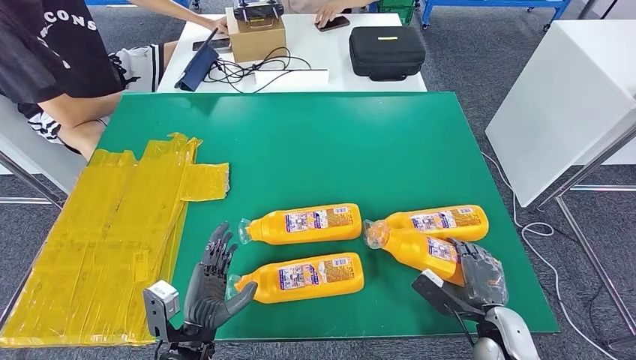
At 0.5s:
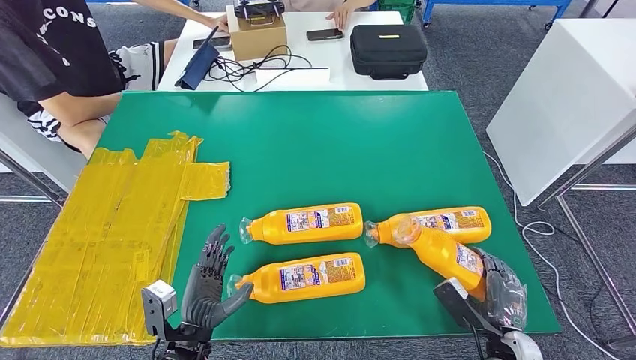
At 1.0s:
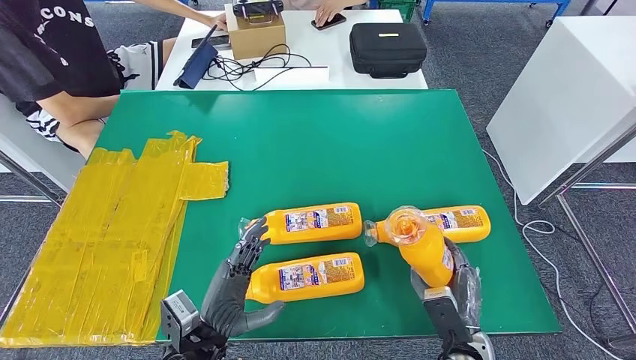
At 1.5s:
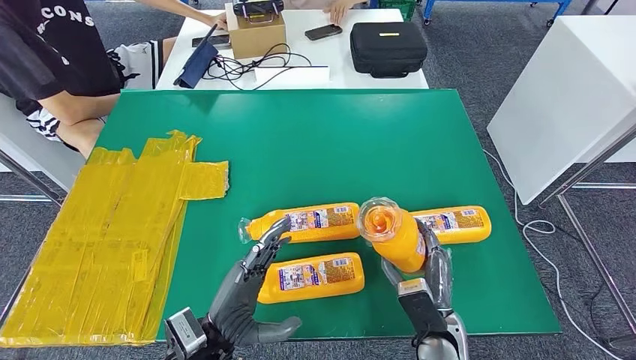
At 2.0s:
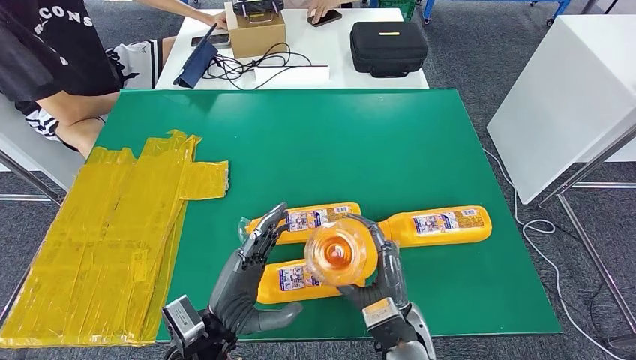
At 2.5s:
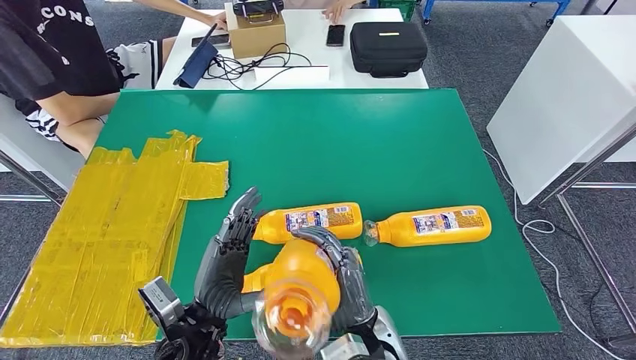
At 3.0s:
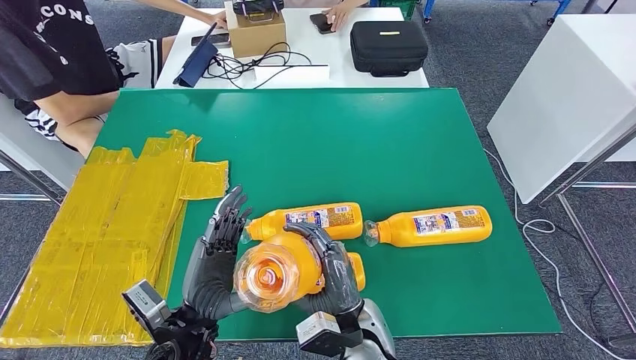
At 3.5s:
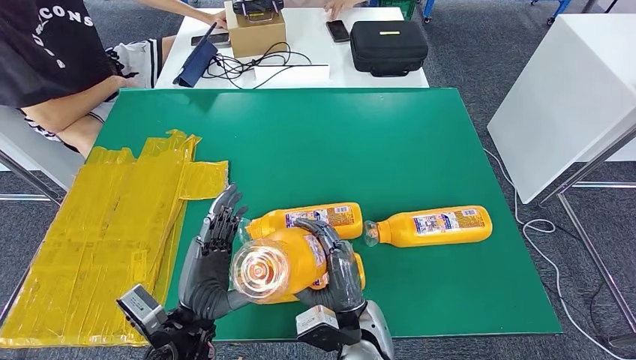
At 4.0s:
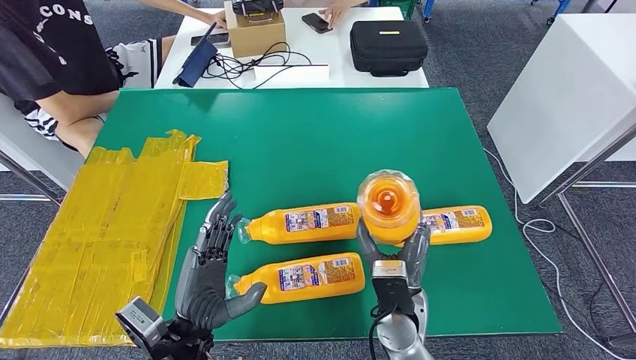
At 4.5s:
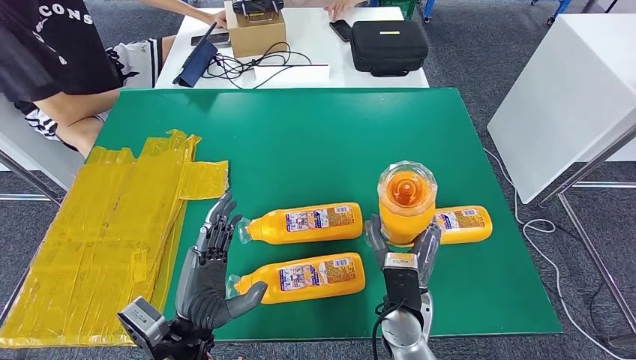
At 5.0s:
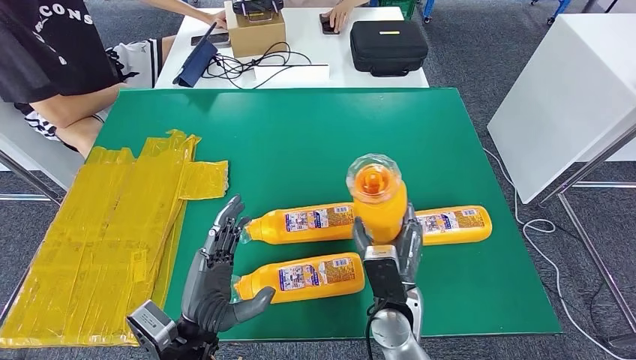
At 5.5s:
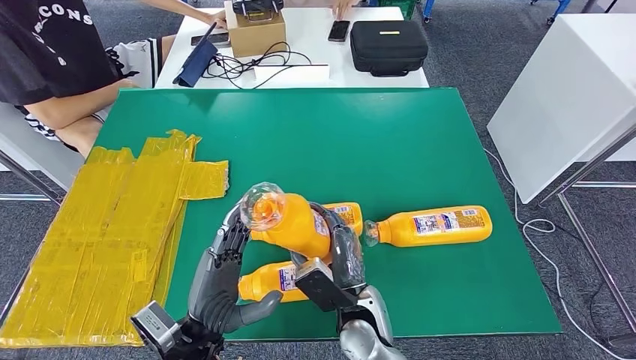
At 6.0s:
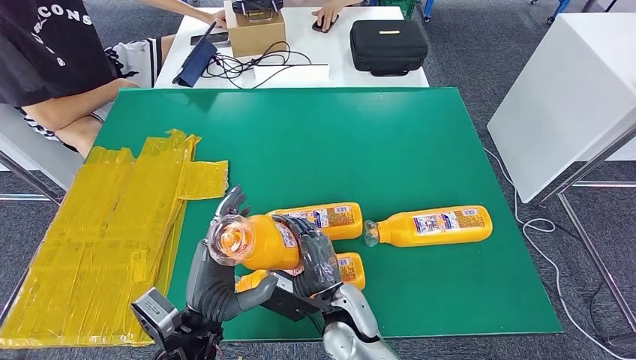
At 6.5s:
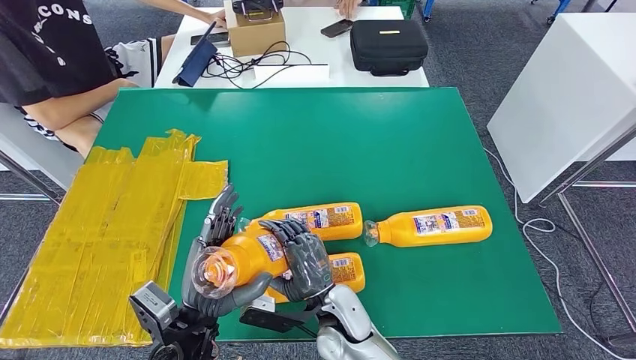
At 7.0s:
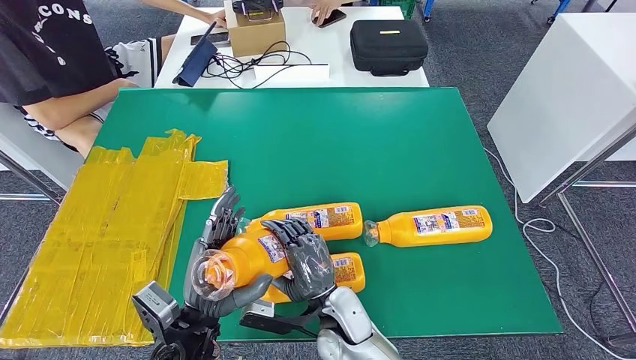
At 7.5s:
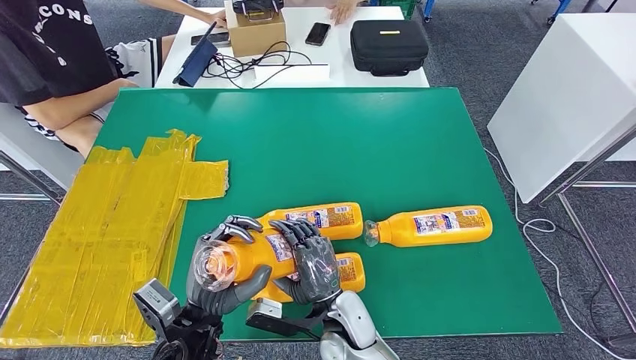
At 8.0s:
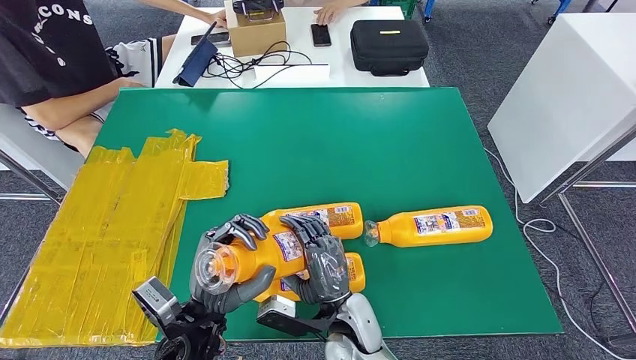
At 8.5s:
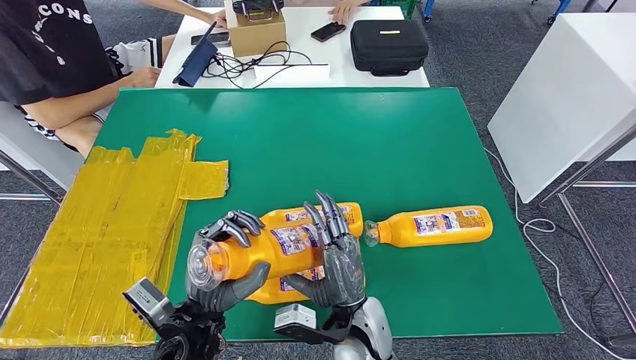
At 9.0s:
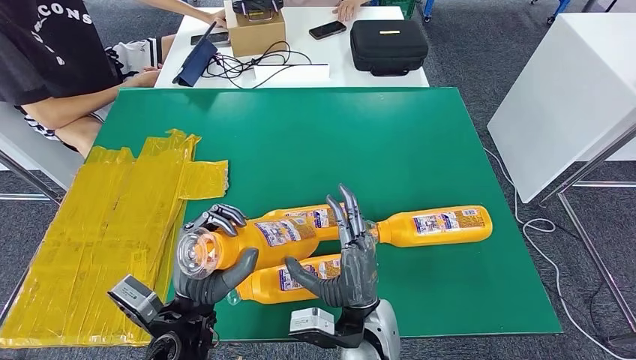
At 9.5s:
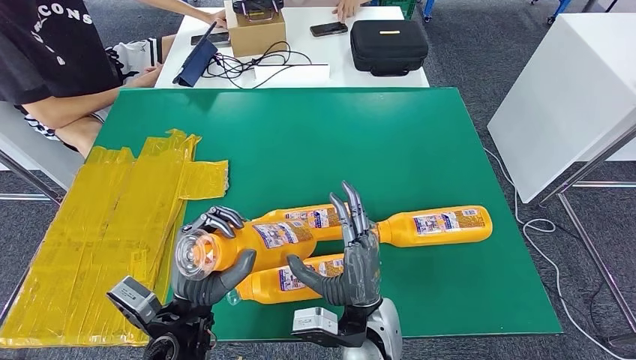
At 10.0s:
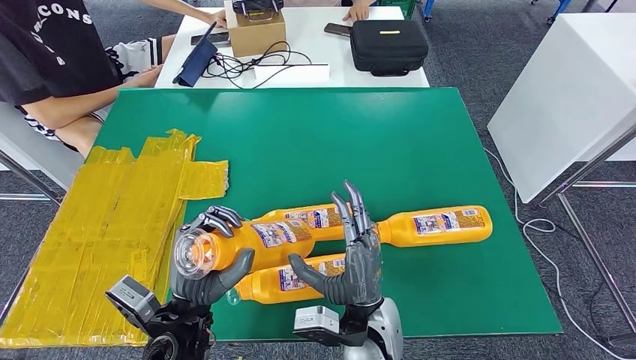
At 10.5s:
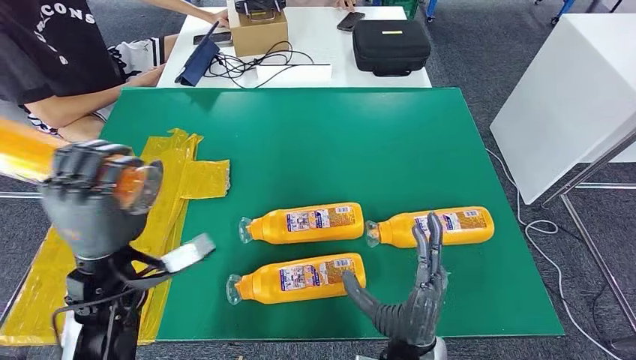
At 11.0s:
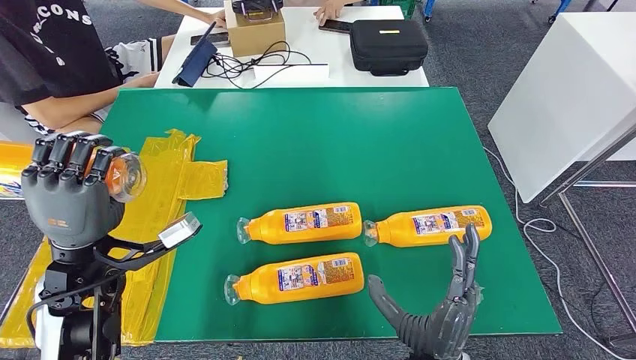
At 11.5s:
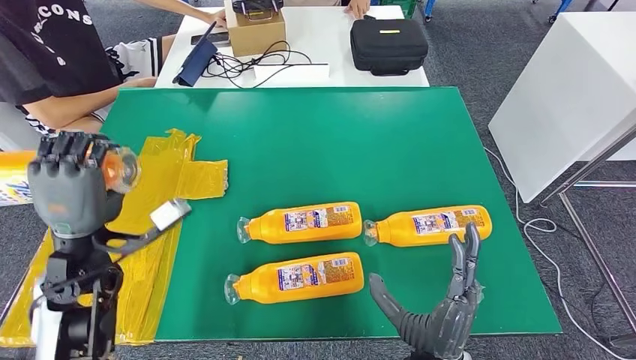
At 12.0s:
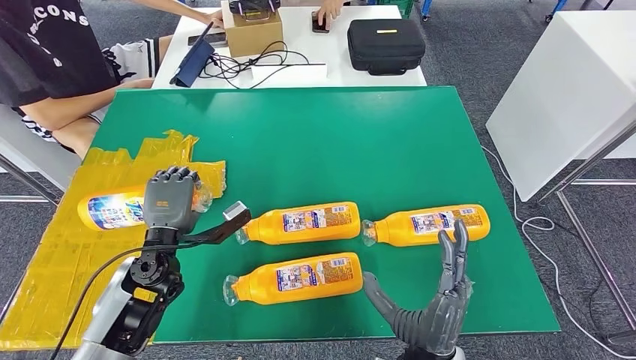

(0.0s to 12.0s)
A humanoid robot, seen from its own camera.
4.0s - 6.0s: The right hand heads to the left, covering about 10 cm.
6.0s - 8.0s: The hands move only a little.
8.0s - 10.0s: The right hand changes place by approximately 5 cm.

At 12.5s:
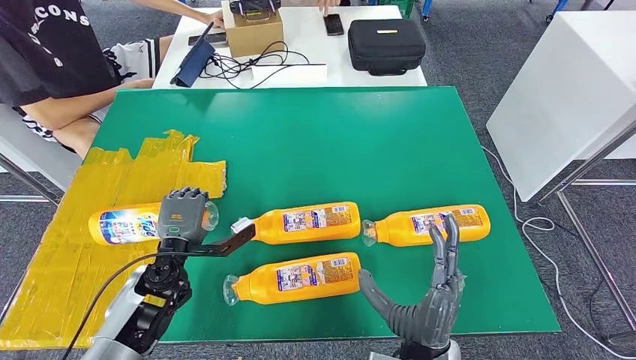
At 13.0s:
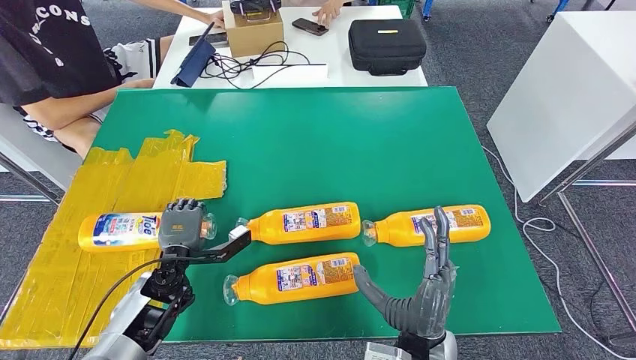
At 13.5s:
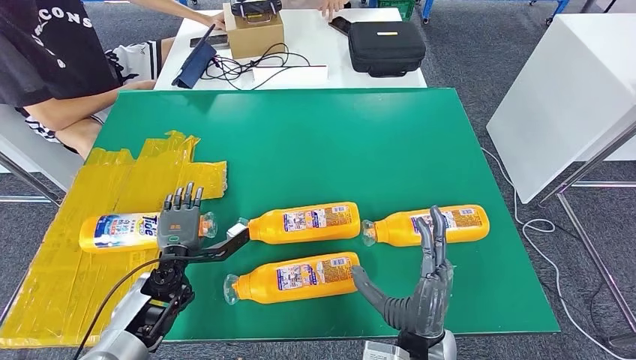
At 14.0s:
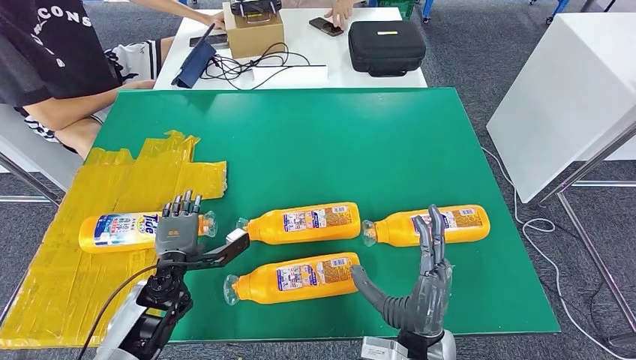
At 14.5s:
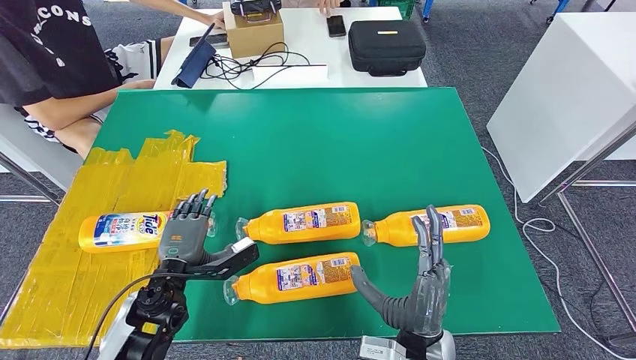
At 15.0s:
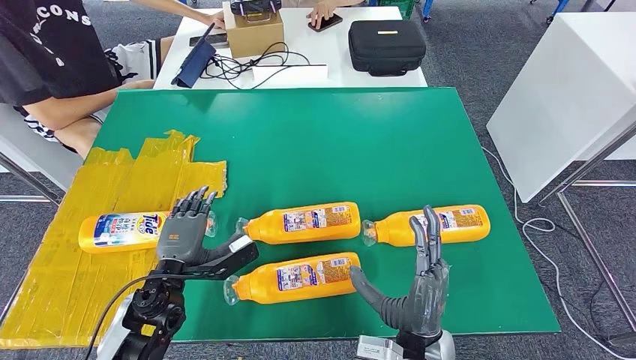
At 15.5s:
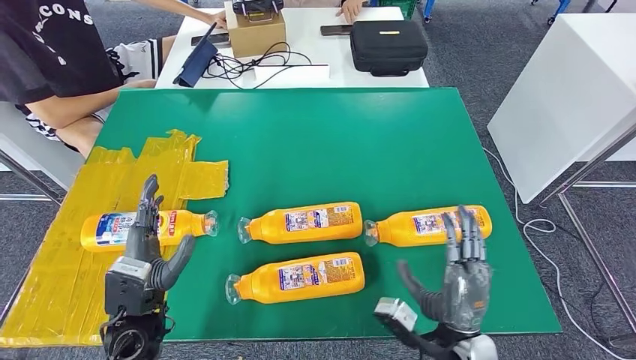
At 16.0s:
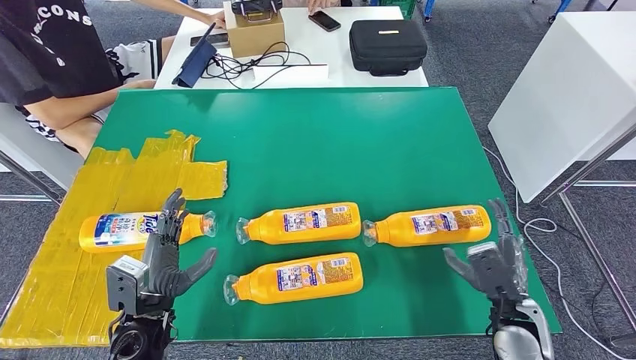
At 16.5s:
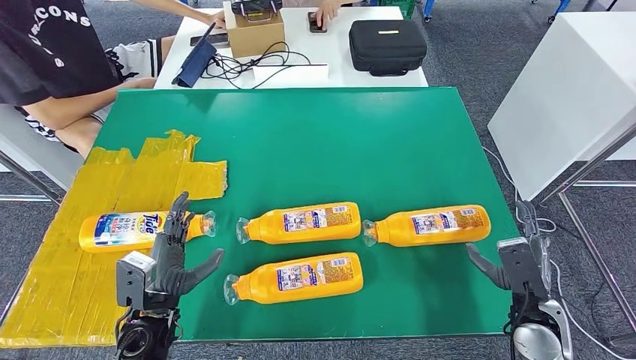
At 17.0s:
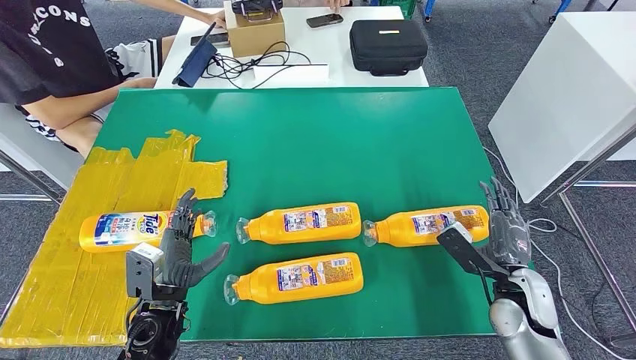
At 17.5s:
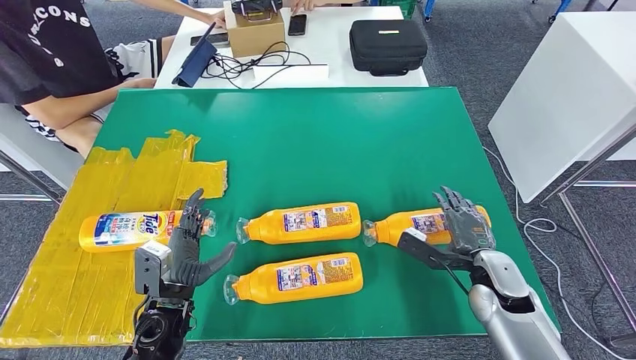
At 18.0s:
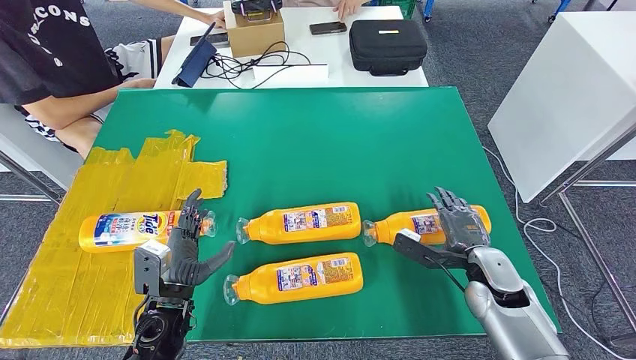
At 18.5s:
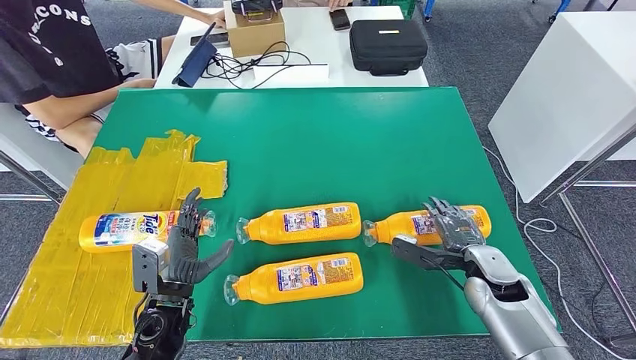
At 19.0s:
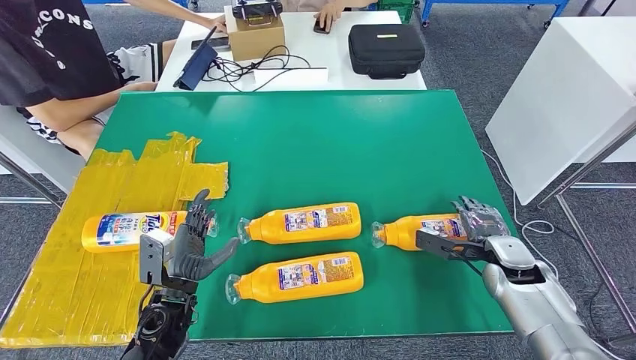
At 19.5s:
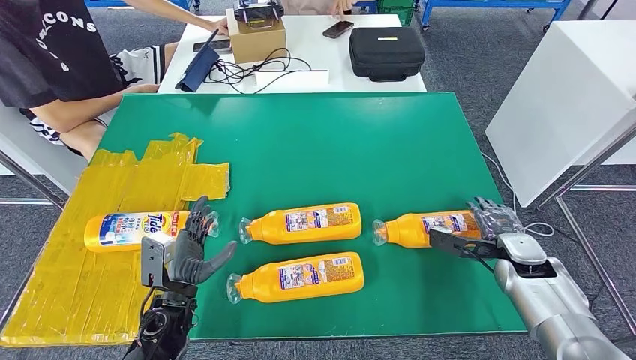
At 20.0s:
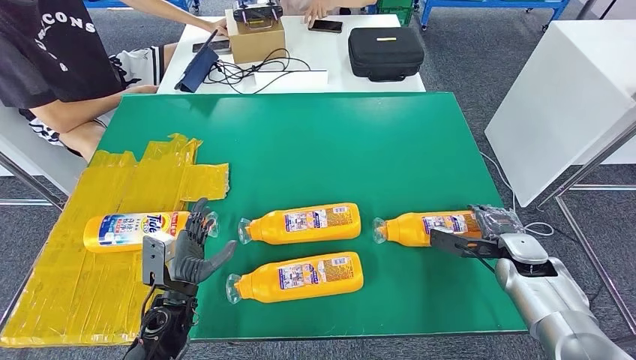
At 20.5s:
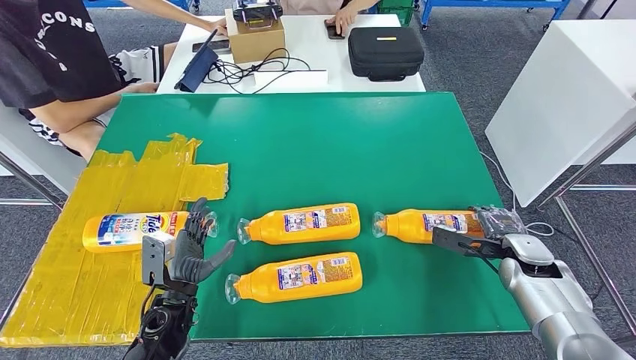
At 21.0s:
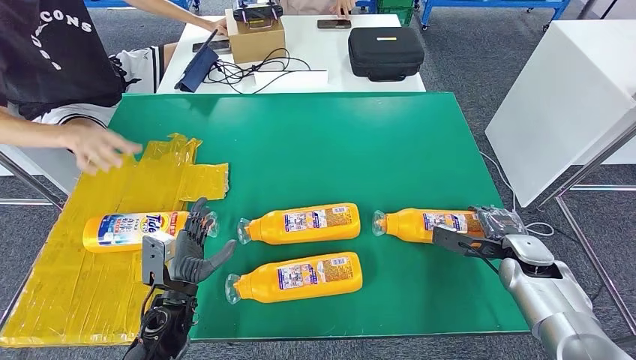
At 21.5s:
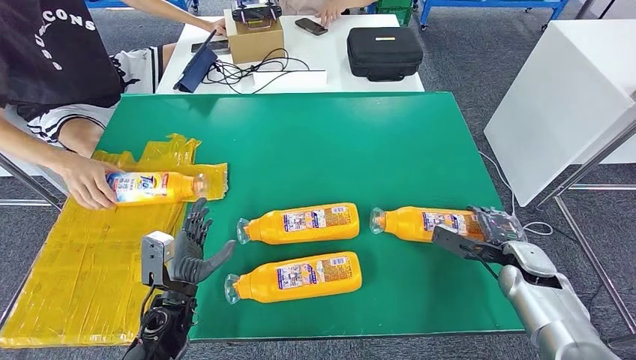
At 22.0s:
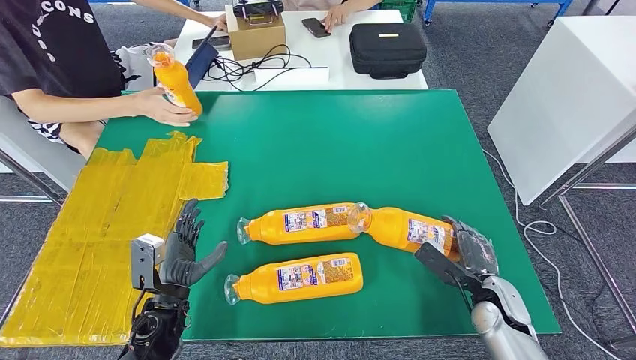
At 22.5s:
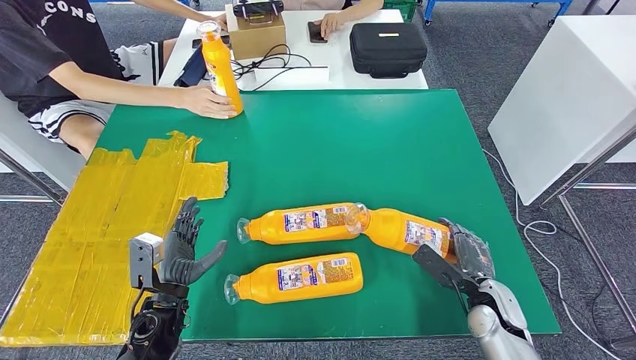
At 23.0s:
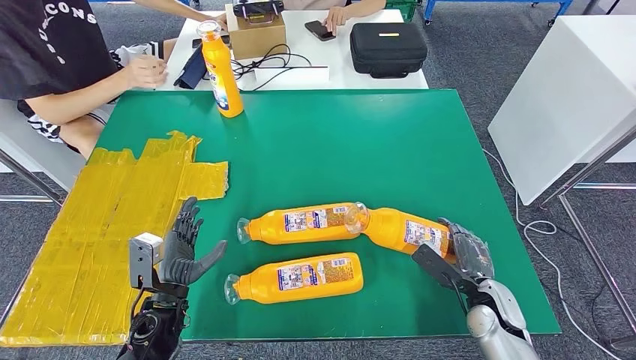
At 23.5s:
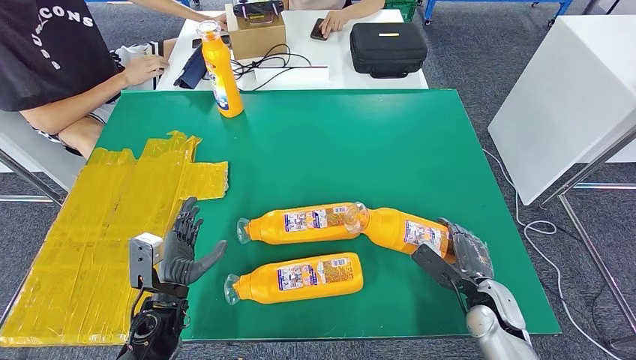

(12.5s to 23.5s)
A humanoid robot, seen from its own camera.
Step, 14.0s - 22.0s: Pick up the bottle from the table.
12.5s - 14.5s: The hands make only small movements.
14.5s - 16.0s: The right hand is displaced to the right by some 15 cm, while the left hand is displaced backward by some 5 cm.
16.0s - 18.0s: The right hand goes approximately 10 cm forward.
20.0s - 21.5s: The hands move only a little.
